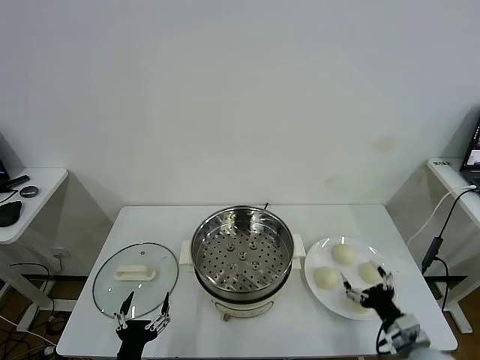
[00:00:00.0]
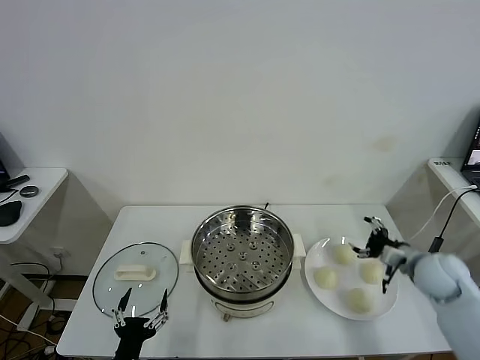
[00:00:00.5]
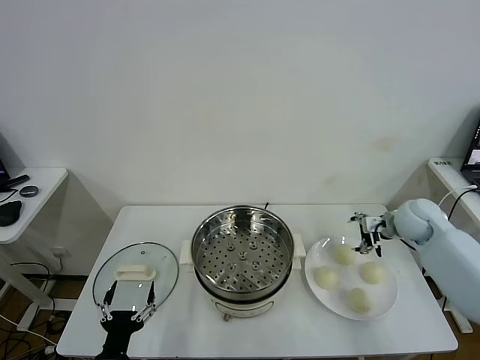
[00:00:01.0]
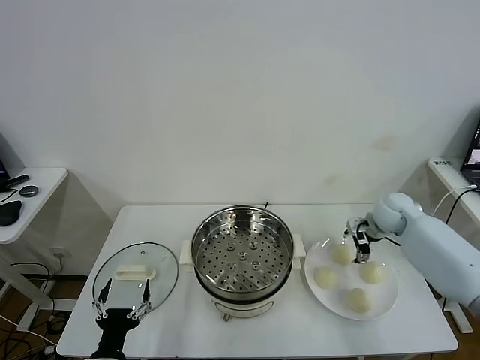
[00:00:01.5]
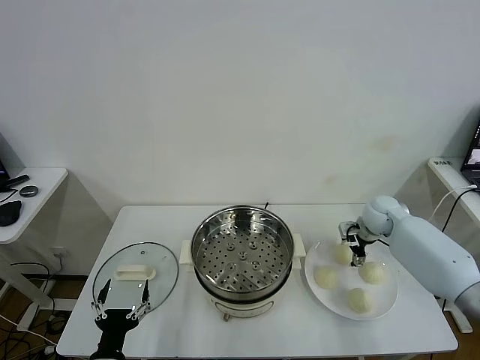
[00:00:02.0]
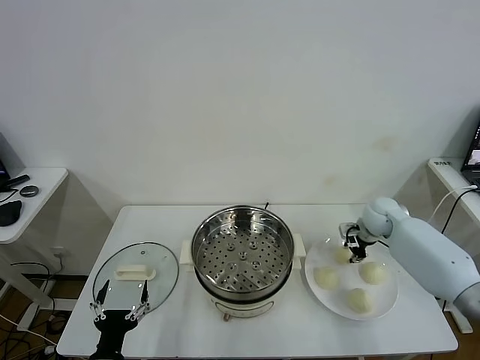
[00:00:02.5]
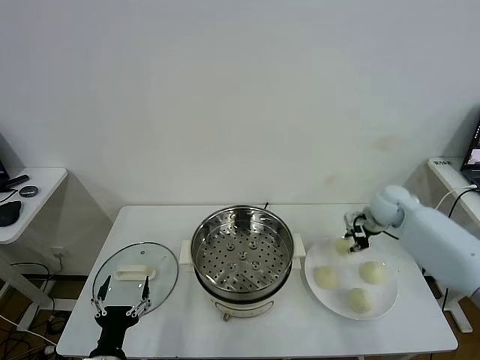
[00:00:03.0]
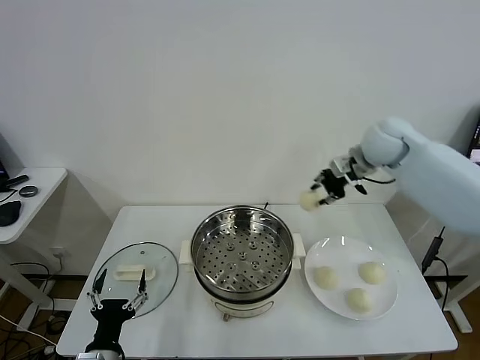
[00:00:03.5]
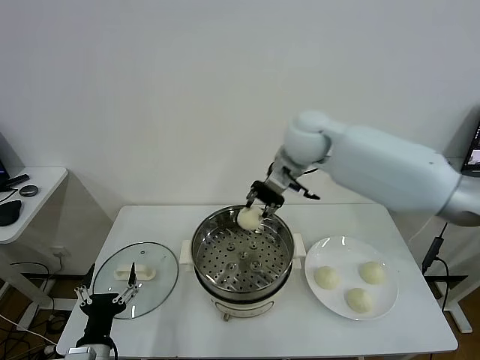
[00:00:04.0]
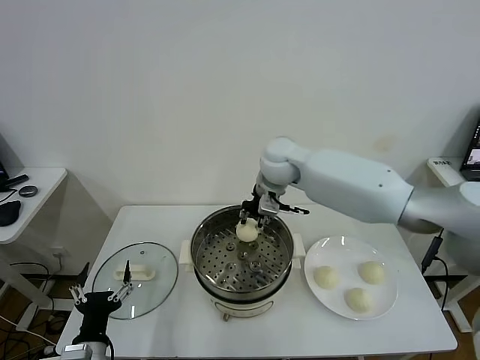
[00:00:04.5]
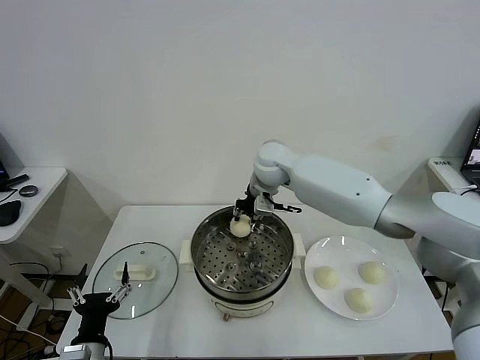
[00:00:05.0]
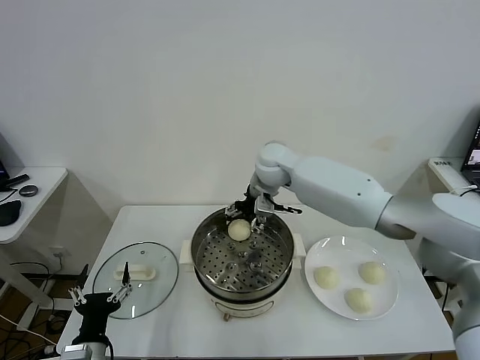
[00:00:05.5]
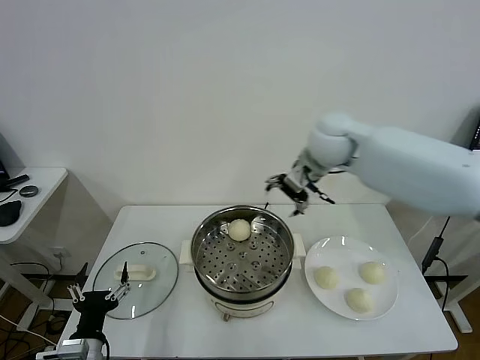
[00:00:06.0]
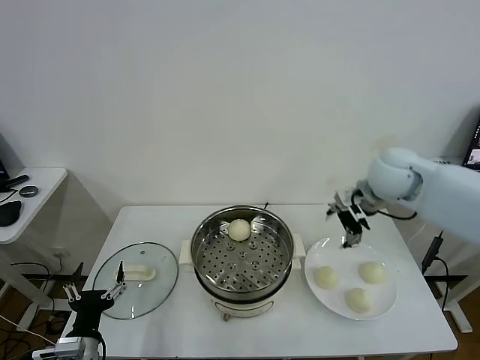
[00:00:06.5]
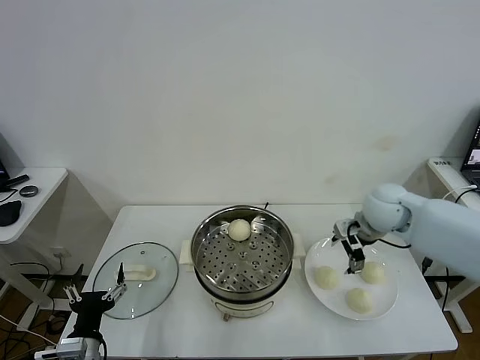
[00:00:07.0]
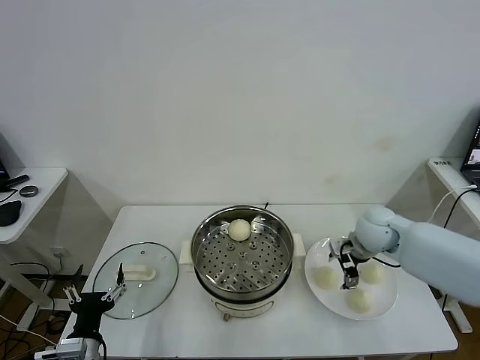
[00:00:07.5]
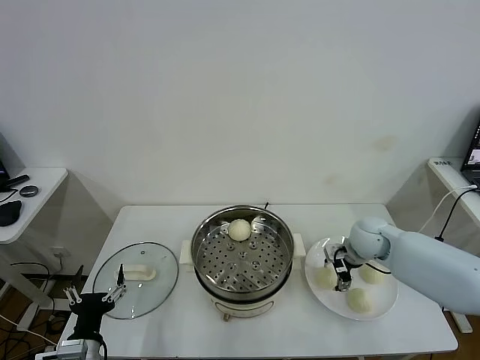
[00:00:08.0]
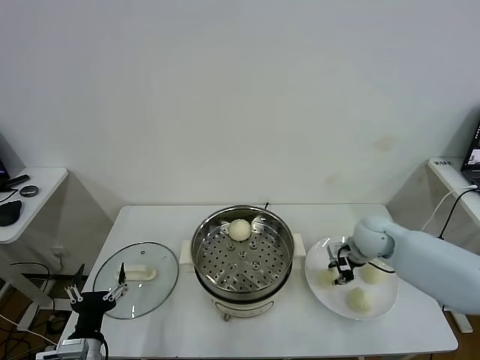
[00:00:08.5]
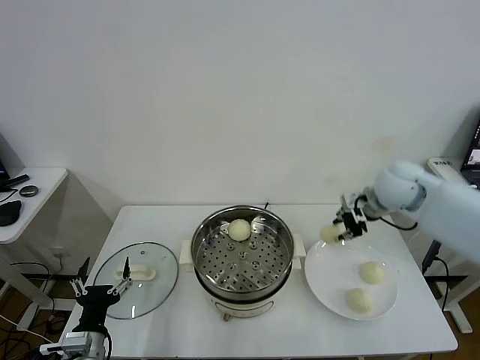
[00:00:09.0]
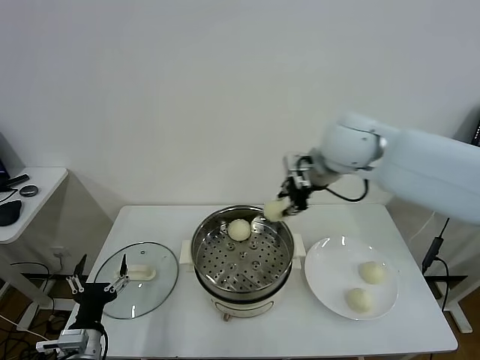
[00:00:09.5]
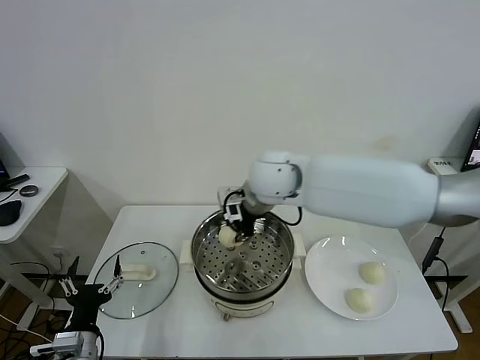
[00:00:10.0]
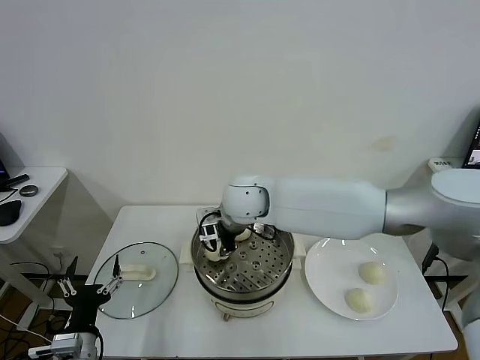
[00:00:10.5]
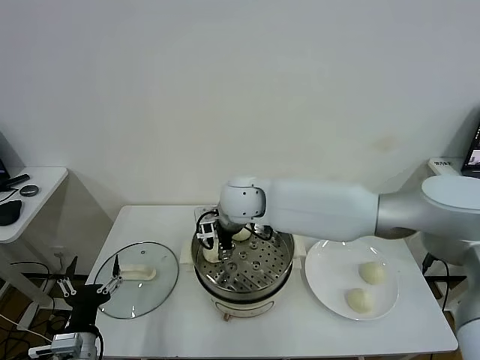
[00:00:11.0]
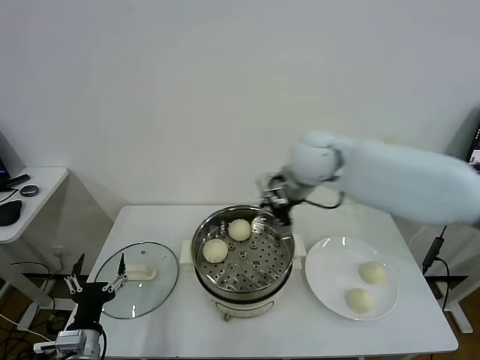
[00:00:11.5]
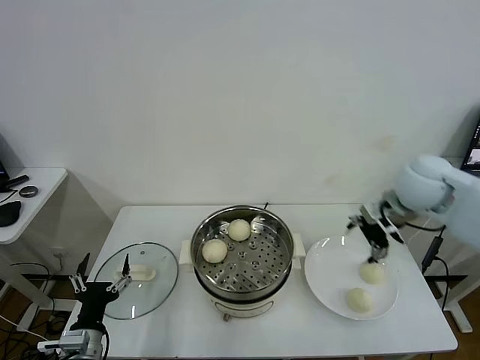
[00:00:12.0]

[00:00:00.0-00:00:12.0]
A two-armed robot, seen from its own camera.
Task of the whole recording: take steamed baozi put them in steamer.
Step, 00:00:00.0 to 00:00:02.5: Grasp the baozi in the plate with right gripper.
Step, 00:00:03.0 to 00:00:05.5: Place the baozi on the steamer with right gripper.
Step, 00:00:06.0 to 00:00:08.0: Grasp the baozi in the plate with right gripper.
Step, 00:00:08.5 to 00:00:11.0: Place the baozi on the steamer with right gripper.
00:00:02.0 to 00:00:04.0: The right gripper travels to the left and upward by roughly 35 cm, and closes up.
00:00:04.0 to 00:00:06.0: The right gripper shifts some 10 cm to the right, and opens up.
00:00:06.0 to 00:00:08.0: The right gripper is displaced downward and to the right by roughly 25 cm.
00:00:08.0 to 00:00:10.0: The right gripper goes roughly 30 cm to the left and upward, and closes up.
00:00:10.0 to 00:00:12.0: The right gripper is displaced to the right by some 30 cm, and opens.

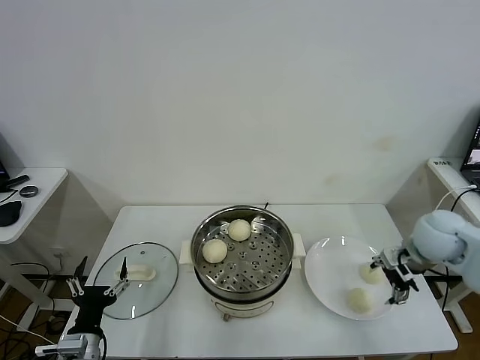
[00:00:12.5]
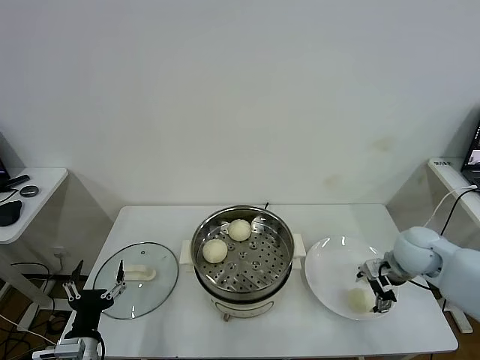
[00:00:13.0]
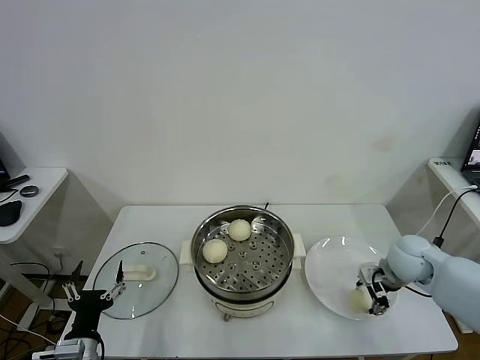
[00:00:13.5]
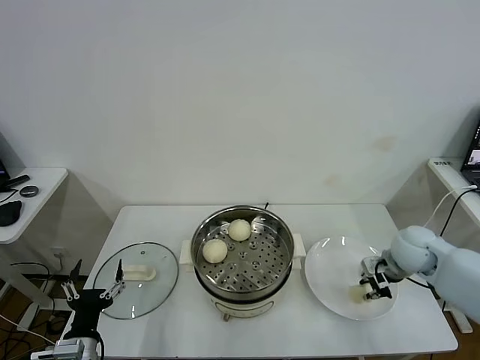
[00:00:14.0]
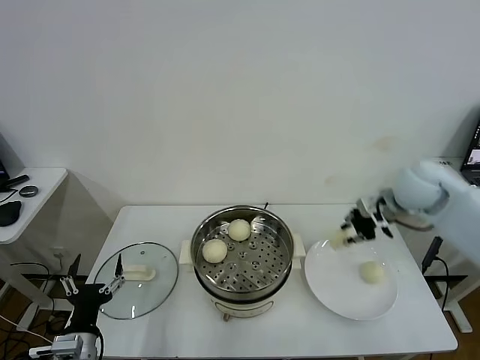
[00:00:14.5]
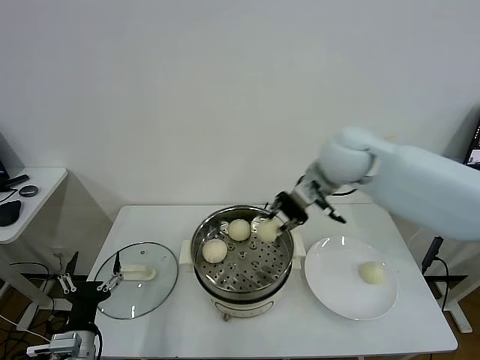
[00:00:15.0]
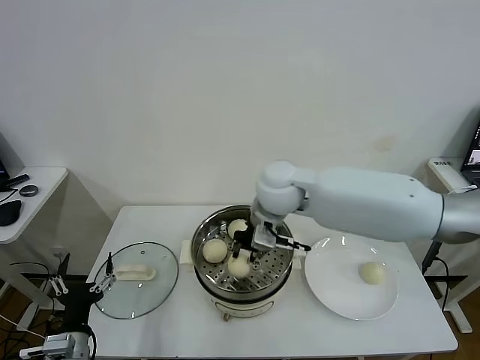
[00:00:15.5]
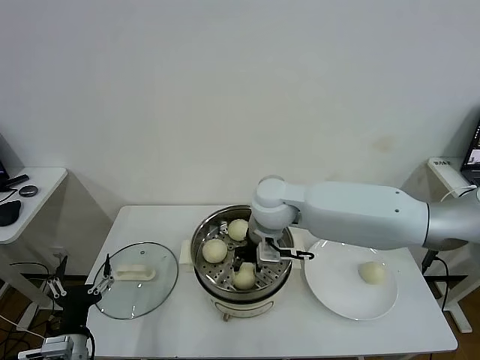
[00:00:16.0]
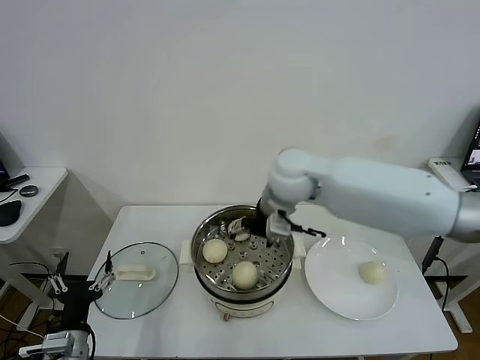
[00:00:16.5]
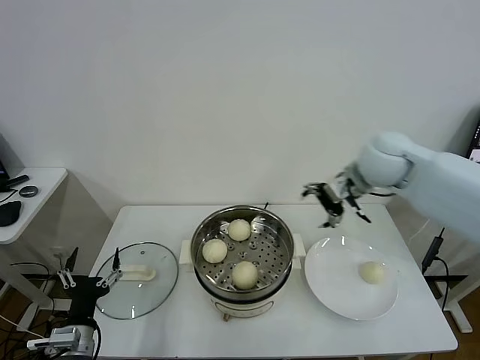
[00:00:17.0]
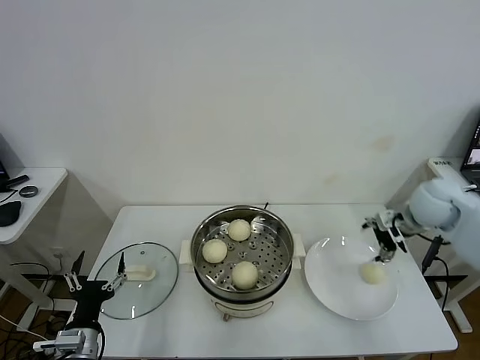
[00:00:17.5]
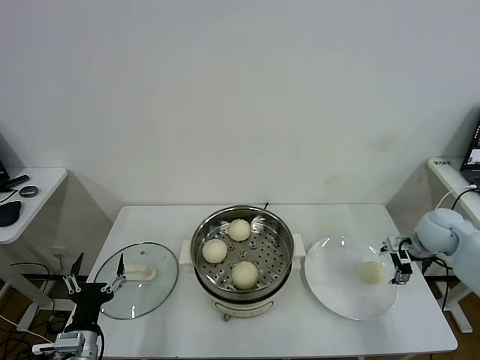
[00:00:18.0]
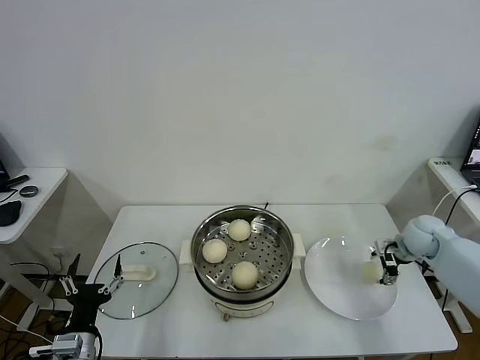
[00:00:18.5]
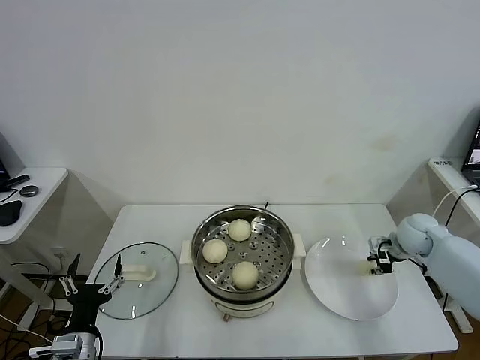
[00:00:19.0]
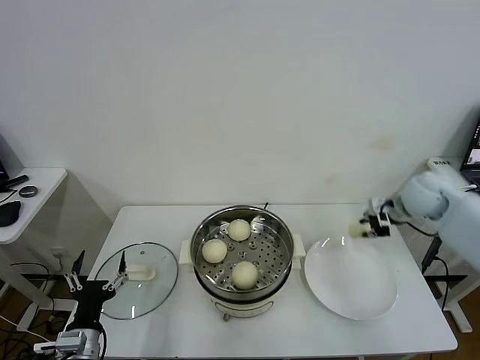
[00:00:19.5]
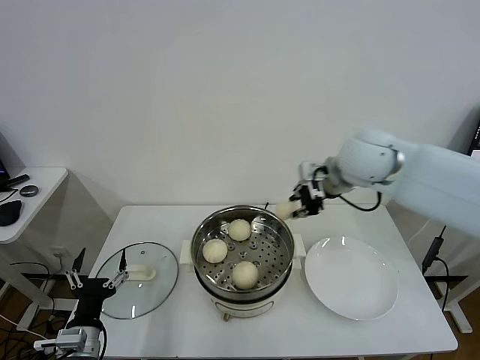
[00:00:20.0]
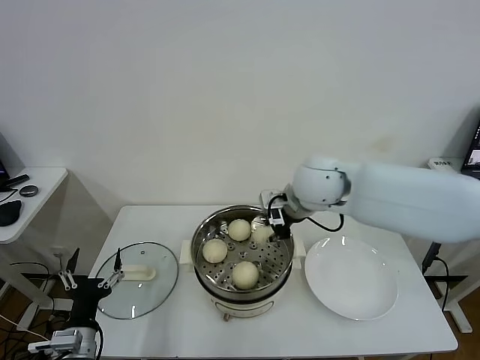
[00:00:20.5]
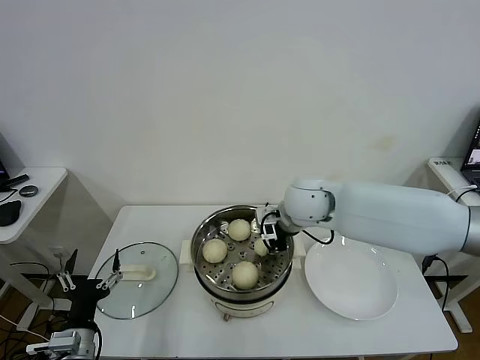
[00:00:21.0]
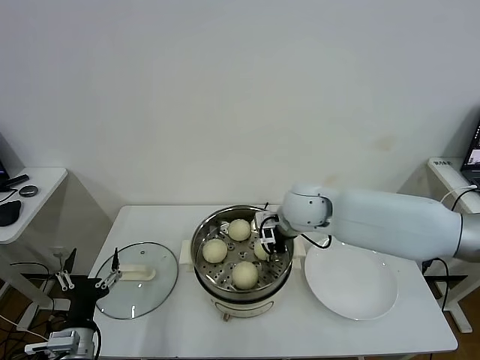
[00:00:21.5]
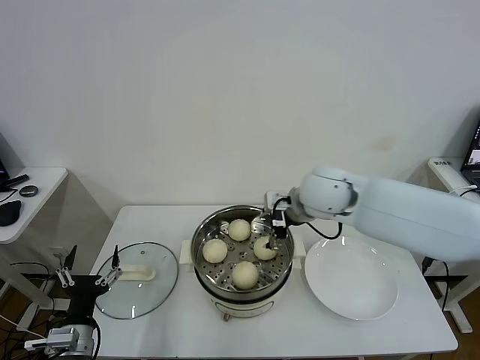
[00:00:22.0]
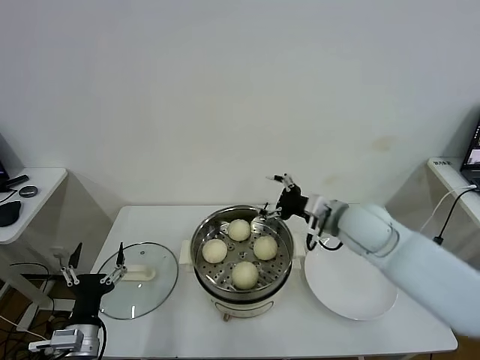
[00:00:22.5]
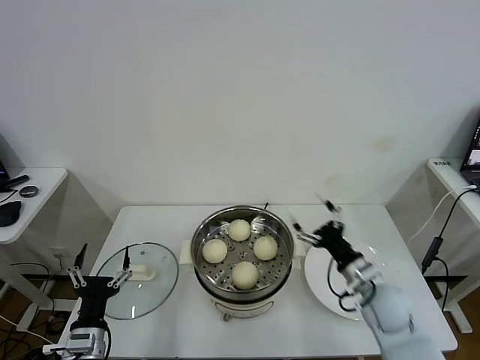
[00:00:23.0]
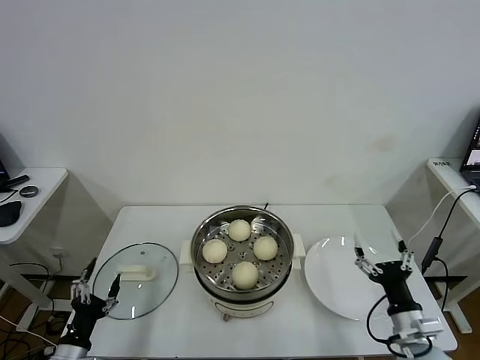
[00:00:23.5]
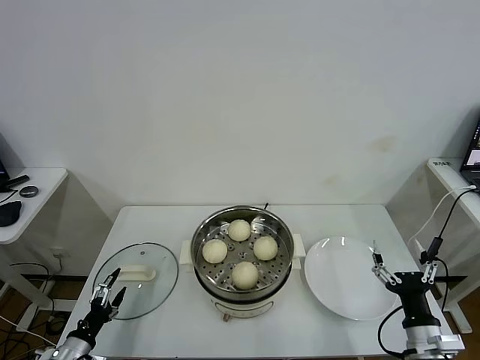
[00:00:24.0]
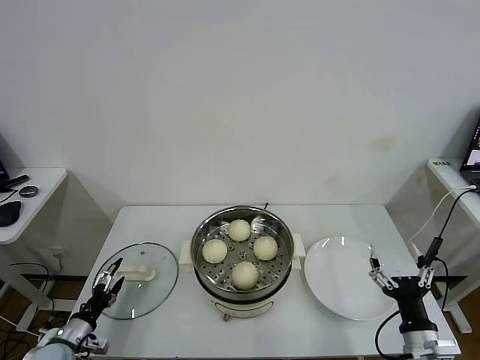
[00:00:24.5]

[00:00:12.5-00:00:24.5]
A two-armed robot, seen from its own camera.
Task of the whole recording: take steamed baozi put them in steamer.
Step, 00:00:14.0 to 00:00:16.0: Place the baozi on the steamer with right gripper.
Step, 00:00:16.5 to 00:00:18.5: Grasp the baozi in the plate with right gripper.
Step, 00:00:19.0 to 00:00:21.5: Place the baozi on the steamer with right gripper.
00:00:12.5 to 00:00:14.5: The right gripper travels upward, forward and to the left by roughly 15 cm, and closes its fingers.
00:00:14.5 to 00:00:16.5: The right gripper travels to the left by approximately 25 cm, and opens.
00:00:16.5 to 00:00:18.5: The right gripper shifts roughly 40 cm to the right and downward.
00:00:18.5 to 00:00:20.5: The right gripper goes approximately 35 cm to the left and upward, and closes its fingers.
00:00:20.5 to 00:00:22.5: The right gripper shifts approximately 10 cm to the right and downward, and opens.
00:00:22.5 to 00:00:24.5: The right gripper is displaced backward, downward and to the right by approximately 30 cm, while the left gripper goes roughly 15 cm to the left and downward.

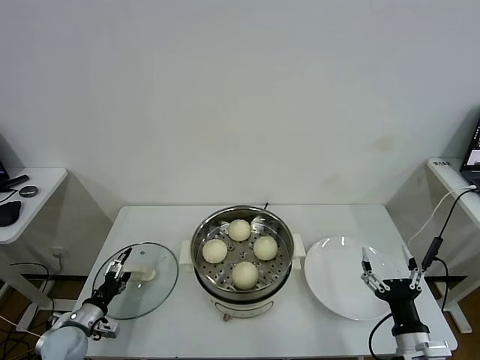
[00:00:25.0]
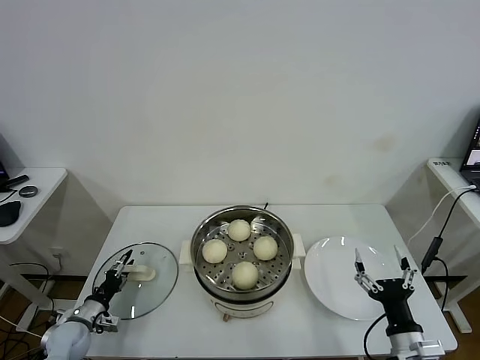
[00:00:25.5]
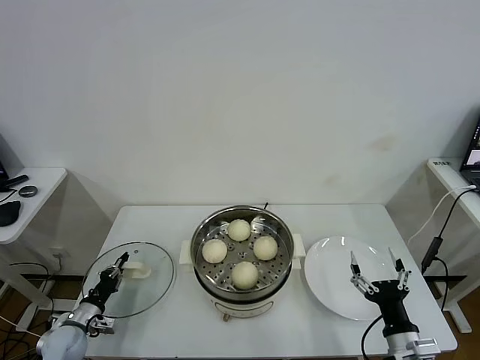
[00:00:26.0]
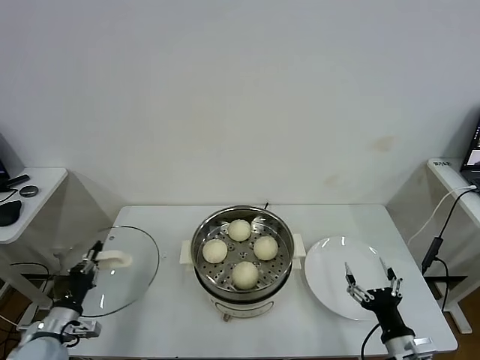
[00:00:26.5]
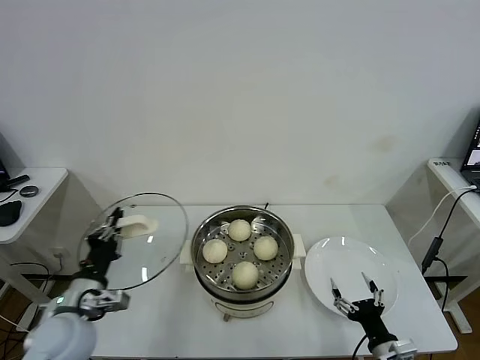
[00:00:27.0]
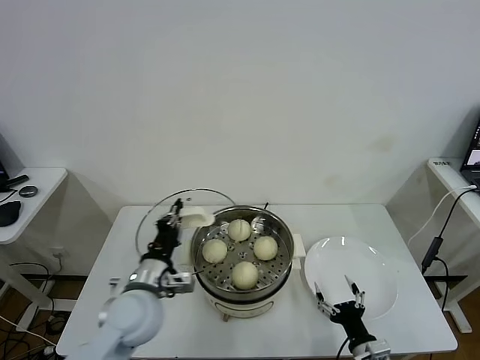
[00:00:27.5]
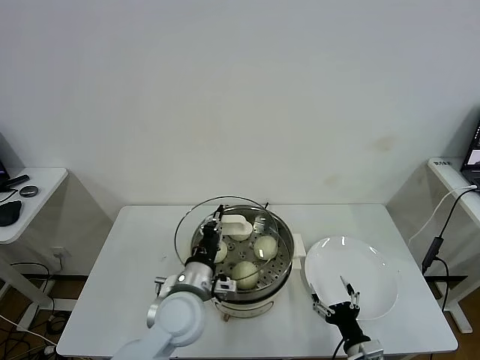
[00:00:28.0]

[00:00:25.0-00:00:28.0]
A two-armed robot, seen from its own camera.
Task of the whole recording: take steamed baozi put them in steamer.
00:00:25.0 to 00:00:26.5: The left gripper heads upward, covering approximately 5 cm, and closes up.
00:00:26.5 to 00:00:28.0: The right gripper moves downward, some 5 cm, while the left gripper goes roughly 30 cm to the right.
